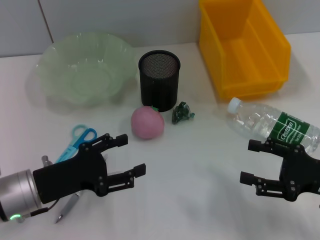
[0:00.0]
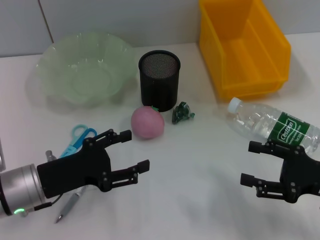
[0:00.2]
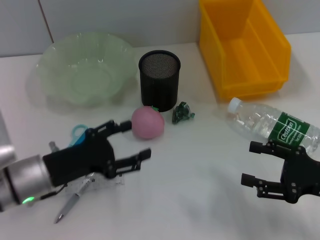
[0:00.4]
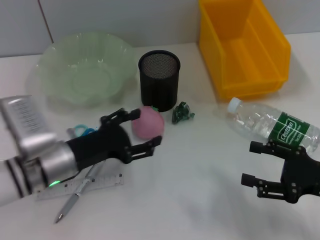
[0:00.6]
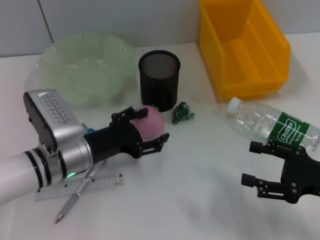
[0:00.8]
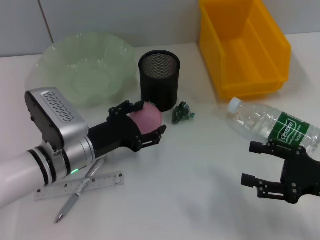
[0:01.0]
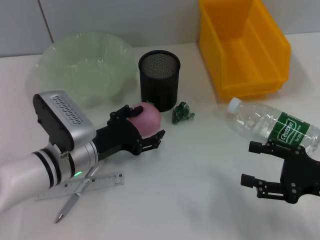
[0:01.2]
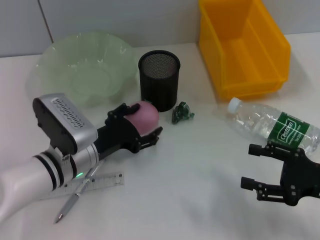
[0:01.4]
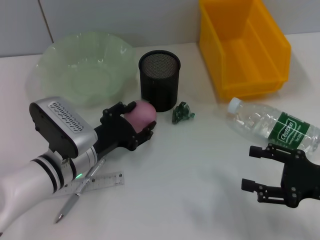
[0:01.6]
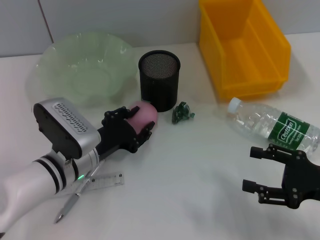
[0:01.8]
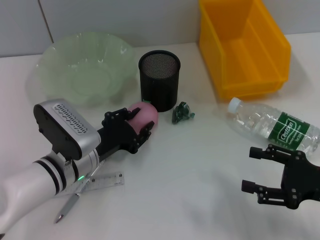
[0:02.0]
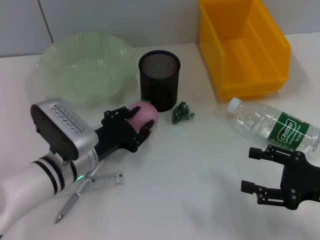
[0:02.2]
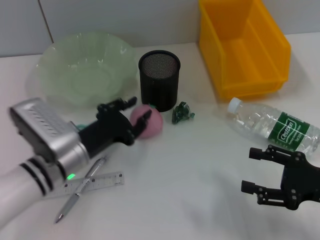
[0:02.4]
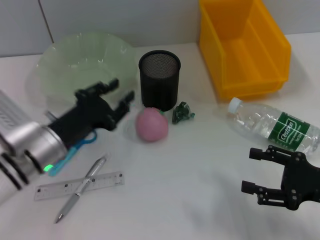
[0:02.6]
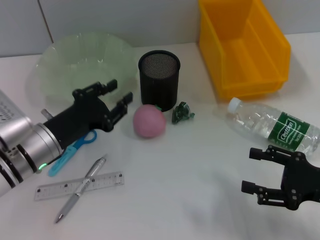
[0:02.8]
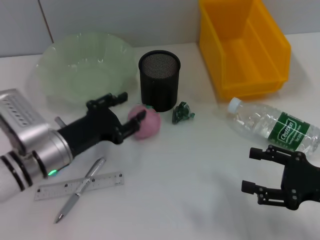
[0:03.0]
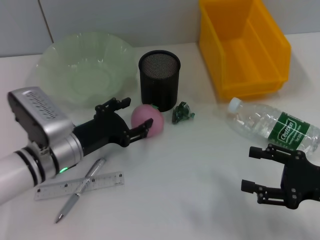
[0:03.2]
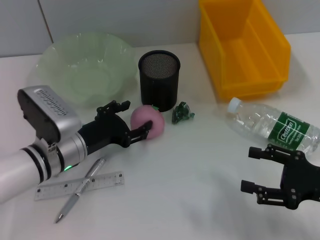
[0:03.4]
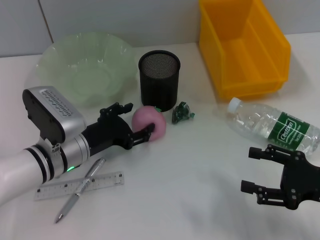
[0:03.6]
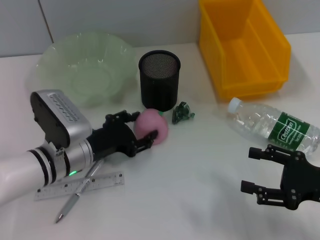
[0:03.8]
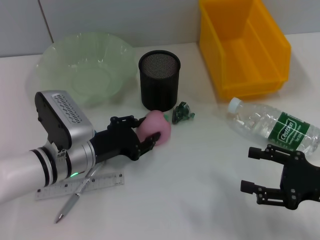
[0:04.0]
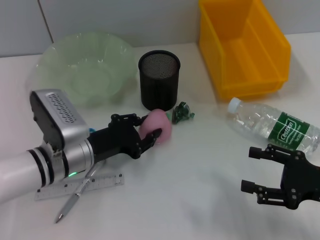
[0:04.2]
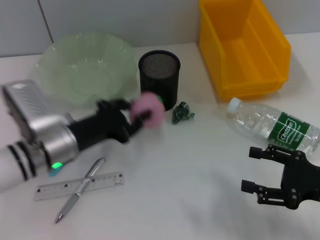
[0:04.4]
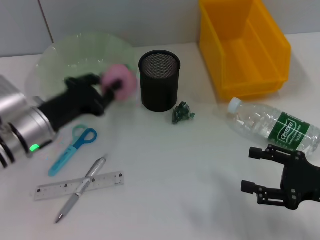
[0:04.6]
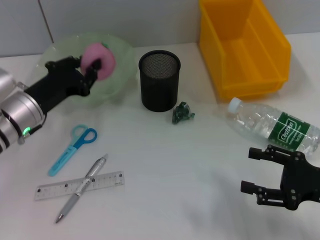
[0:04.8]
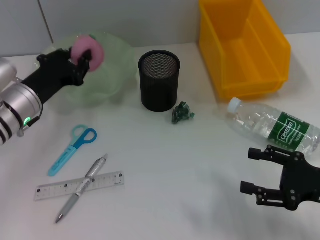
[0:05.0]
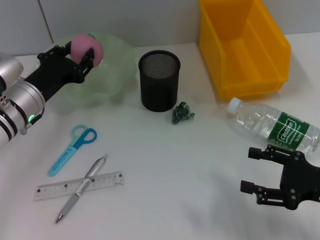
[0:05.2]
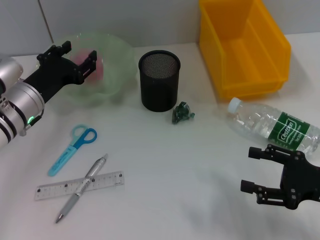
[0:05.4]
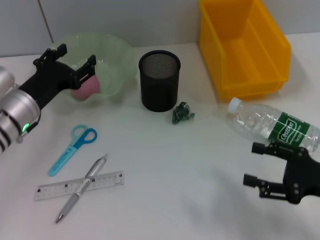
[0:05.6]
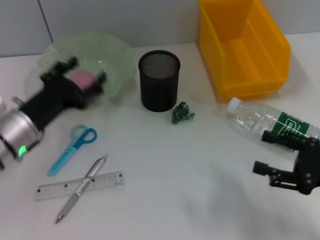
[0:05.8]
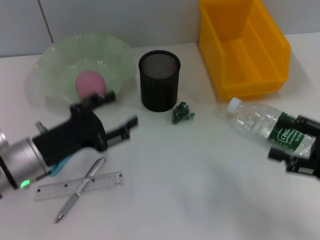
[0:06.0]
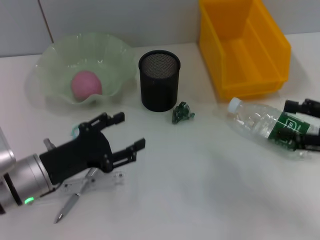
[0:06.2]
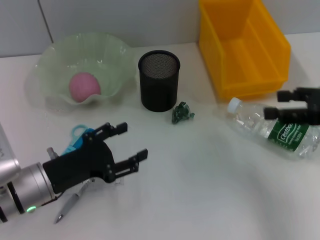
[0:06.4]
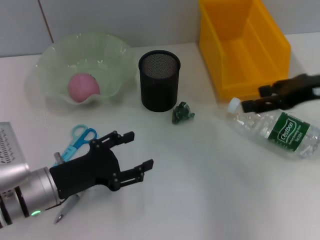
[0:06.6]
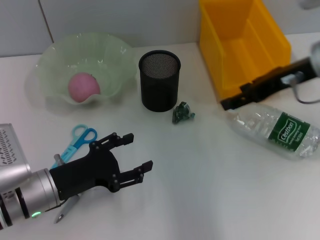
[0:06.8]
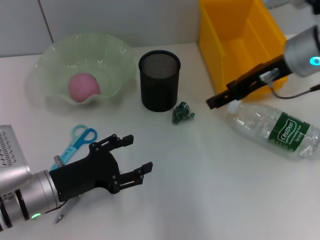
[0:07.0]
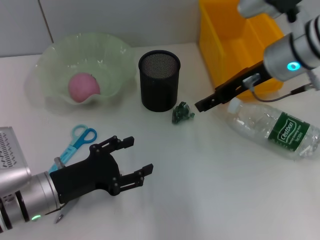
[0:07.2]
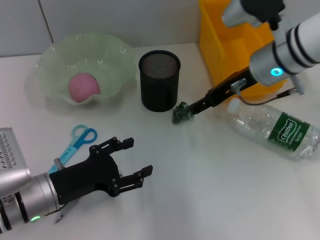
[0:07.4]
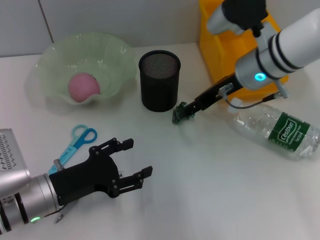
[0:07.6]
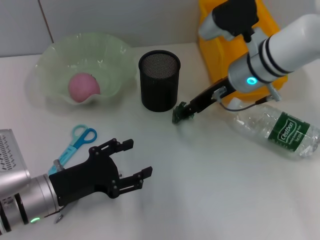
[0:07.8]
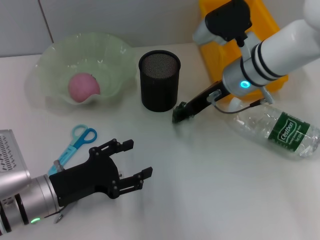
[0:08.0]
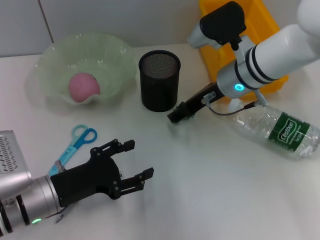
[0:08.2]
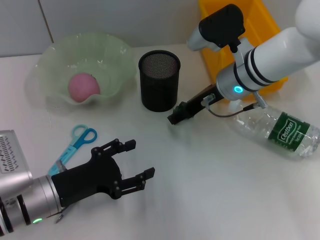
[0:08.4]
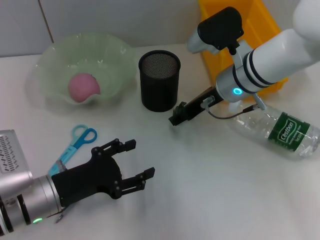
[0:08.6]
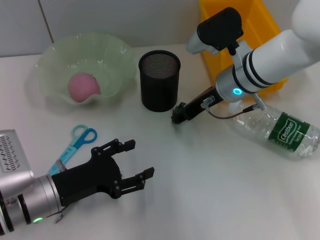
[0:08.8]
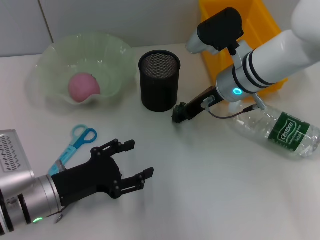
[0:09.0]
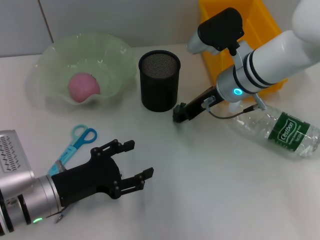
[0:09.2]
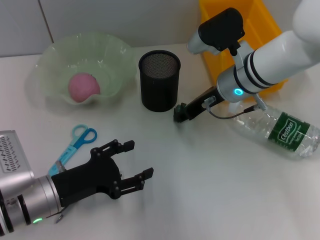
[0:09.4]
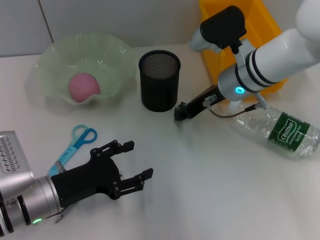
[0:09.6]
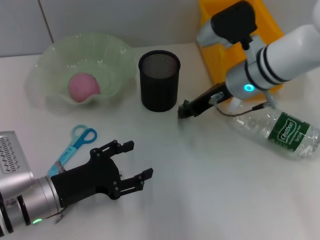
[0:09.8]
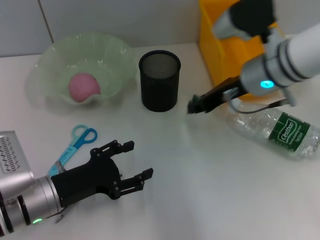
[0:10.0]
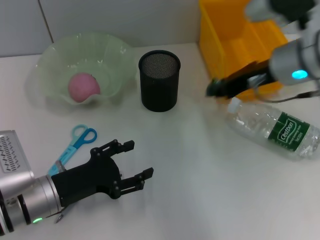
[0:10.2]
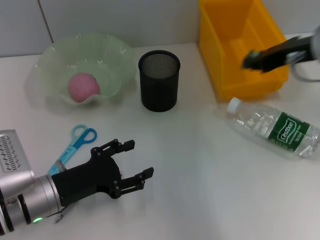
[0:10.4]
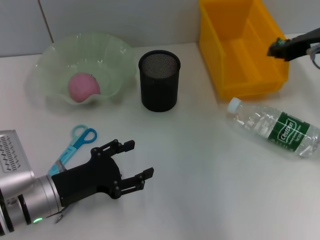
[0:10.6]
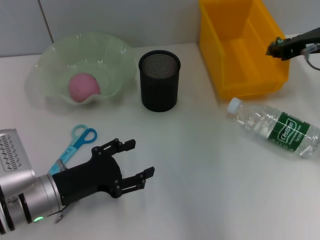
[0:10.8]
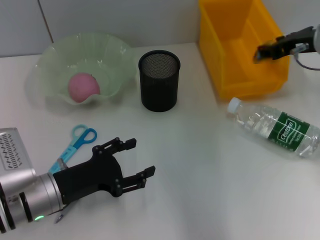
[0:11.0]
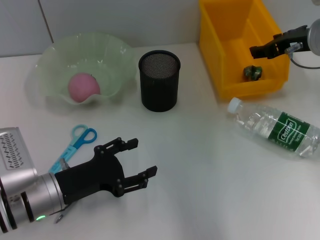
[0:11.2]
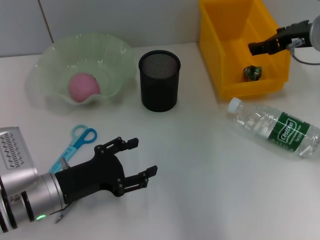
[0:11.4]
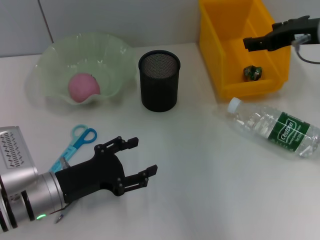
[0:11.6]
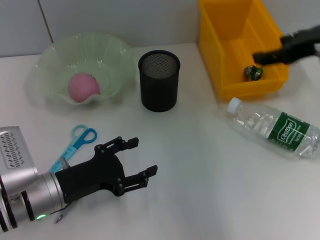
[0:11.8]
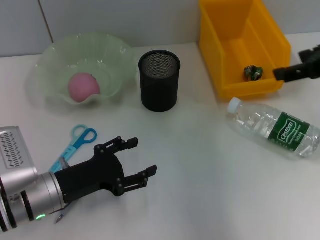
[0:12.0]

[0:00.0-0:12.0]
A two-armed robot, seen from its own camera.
Step, 0:00.0 to 0:03.8: Grab the peach with the left hand.
Step, 0:04.0 to 0:05.6: Place the peach into the fruit bowl with the left hand.
Step, 0:05.8 to 0:08.8: Grab the plastic with the right hand.
Step, 0:09.0 to 0:11.6: Place the plastic into the trash can with the right hand.
0:00.0 to 0:01.6: The left gripper is displaced to the right and forward by roughly 10 cm.
0:01.6 to 0:03.0: The left gripper closes.
0:03.0 to 0:04.4: The left gripper opens, then closes once more.
0:04.4 to 0:06.0: The left gripper ends up roughly 5 cm from where it was, and opens its fingers.
0:06.0 to 0:07.6: The right gripper moves forward and to the left, roughly 25 cm.
0:07.6 to 0:09.0: The grippers stay close to where they were, moving slightly.
0:09.0 to 0:10.4: The right gripper shifts approximately 15 cm to the right, upward and backward, and closes its fingers.
0:10.4 to 0:12.0: The right gripper shifts by about 5 cm, and opens.

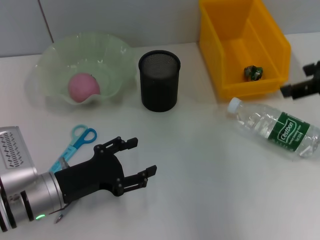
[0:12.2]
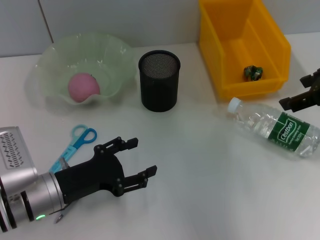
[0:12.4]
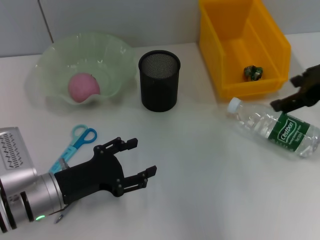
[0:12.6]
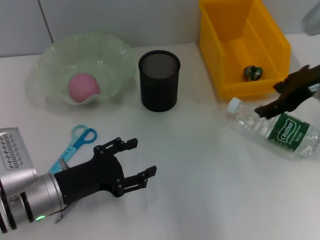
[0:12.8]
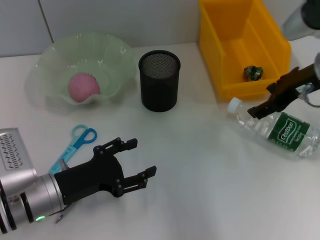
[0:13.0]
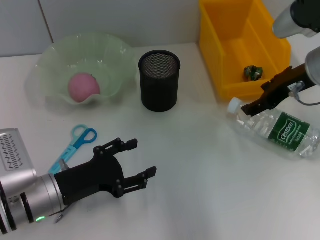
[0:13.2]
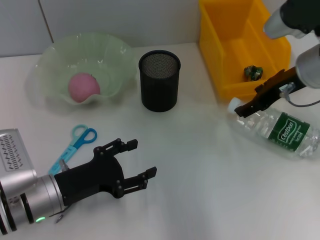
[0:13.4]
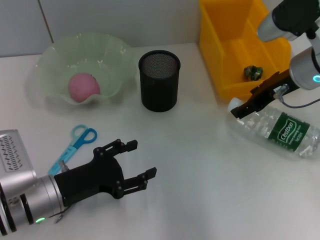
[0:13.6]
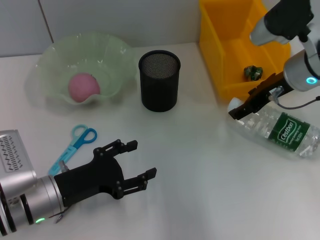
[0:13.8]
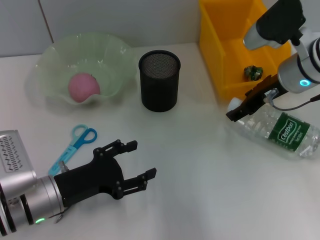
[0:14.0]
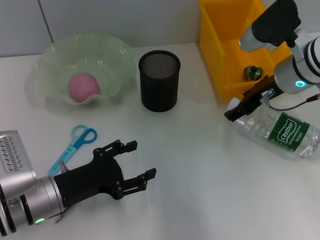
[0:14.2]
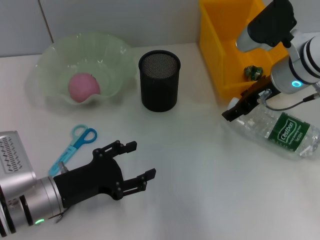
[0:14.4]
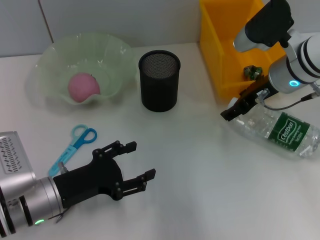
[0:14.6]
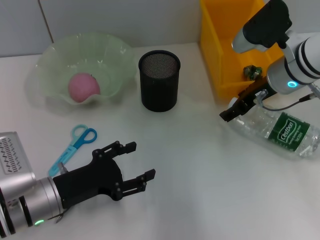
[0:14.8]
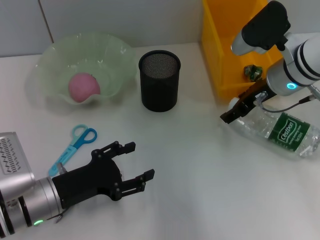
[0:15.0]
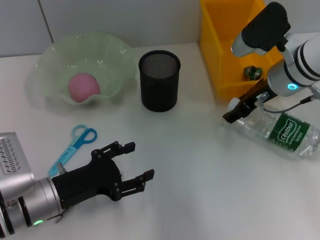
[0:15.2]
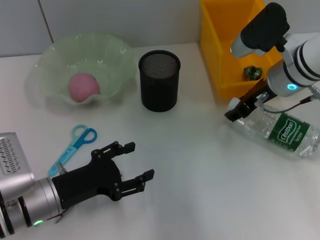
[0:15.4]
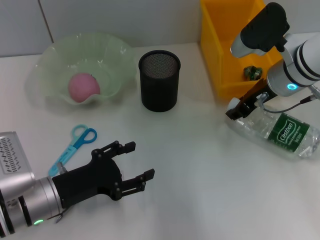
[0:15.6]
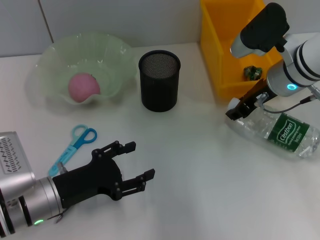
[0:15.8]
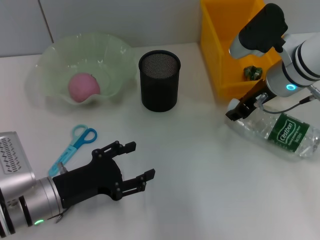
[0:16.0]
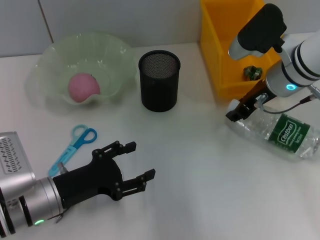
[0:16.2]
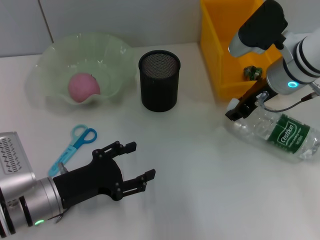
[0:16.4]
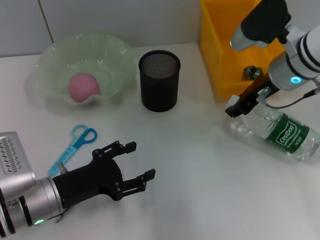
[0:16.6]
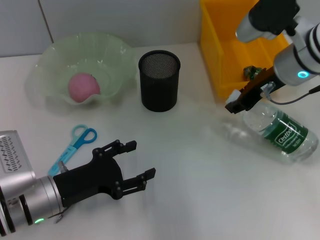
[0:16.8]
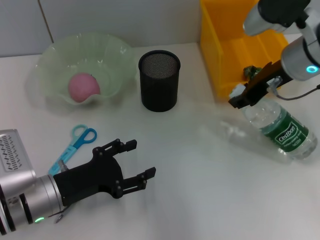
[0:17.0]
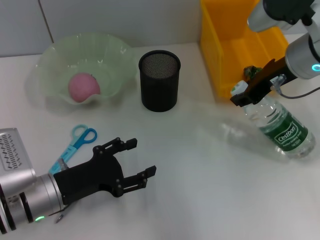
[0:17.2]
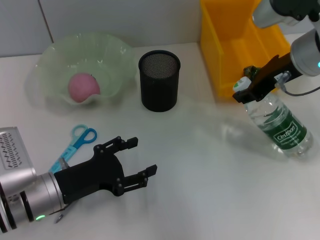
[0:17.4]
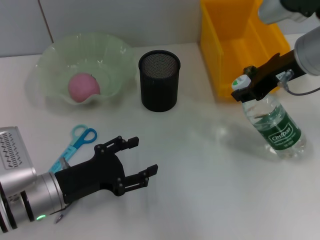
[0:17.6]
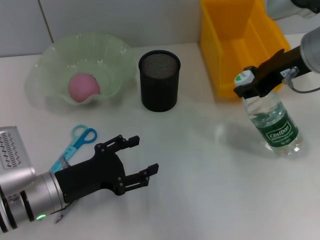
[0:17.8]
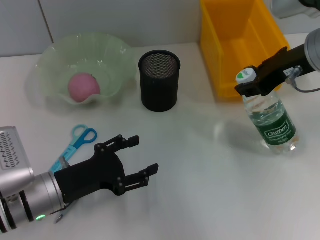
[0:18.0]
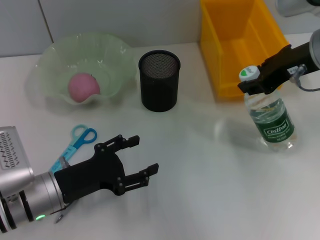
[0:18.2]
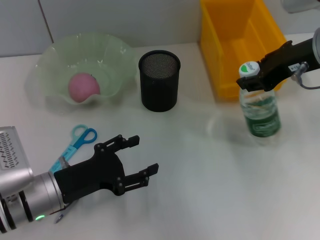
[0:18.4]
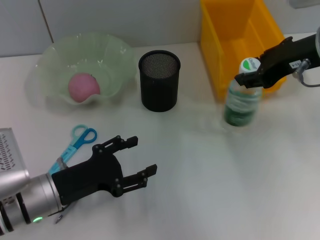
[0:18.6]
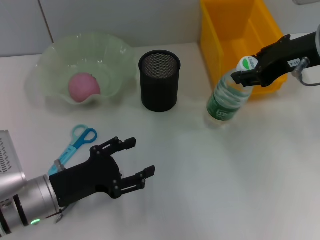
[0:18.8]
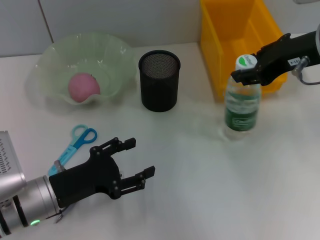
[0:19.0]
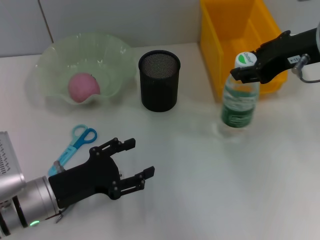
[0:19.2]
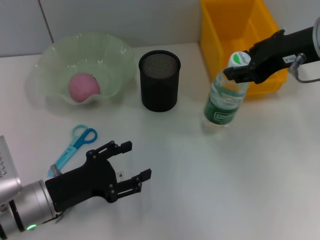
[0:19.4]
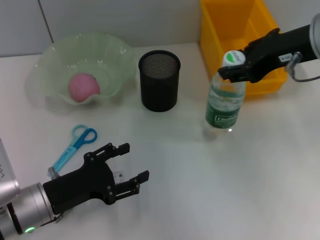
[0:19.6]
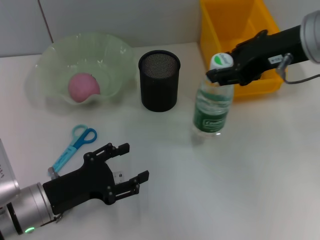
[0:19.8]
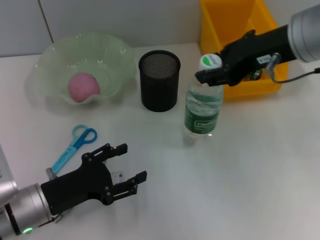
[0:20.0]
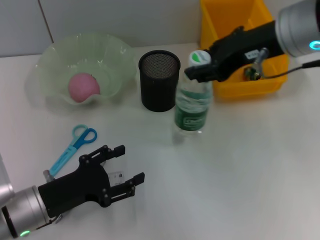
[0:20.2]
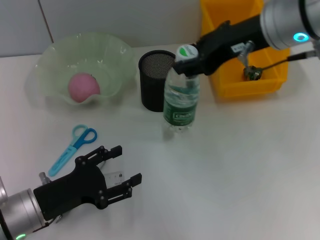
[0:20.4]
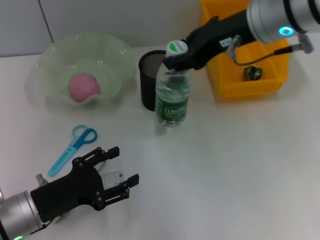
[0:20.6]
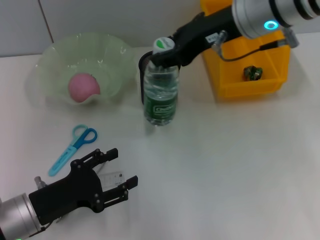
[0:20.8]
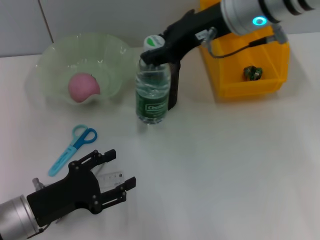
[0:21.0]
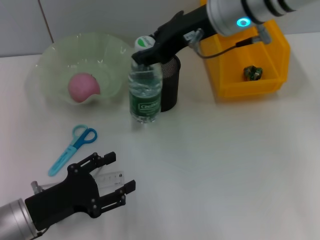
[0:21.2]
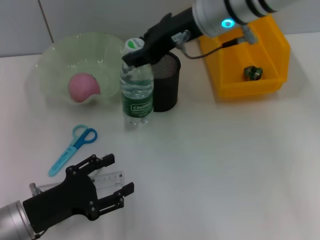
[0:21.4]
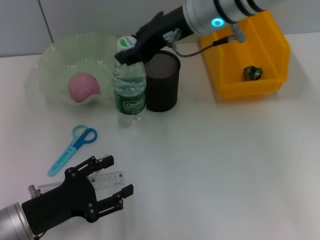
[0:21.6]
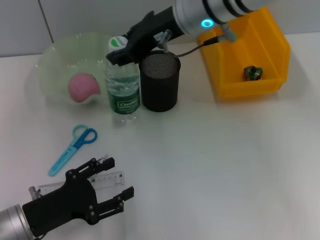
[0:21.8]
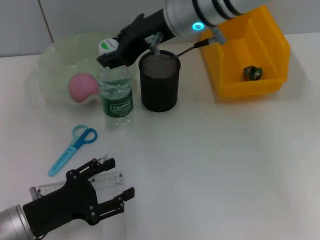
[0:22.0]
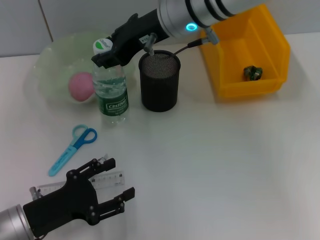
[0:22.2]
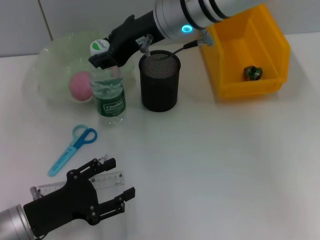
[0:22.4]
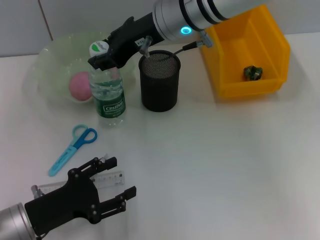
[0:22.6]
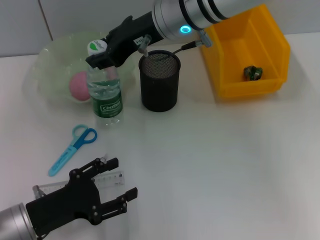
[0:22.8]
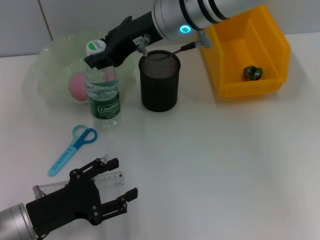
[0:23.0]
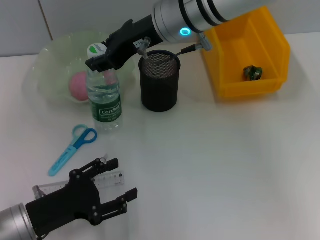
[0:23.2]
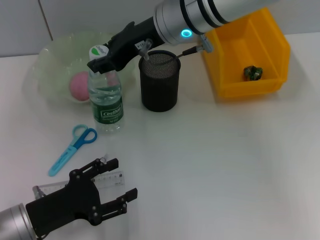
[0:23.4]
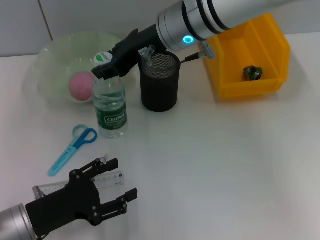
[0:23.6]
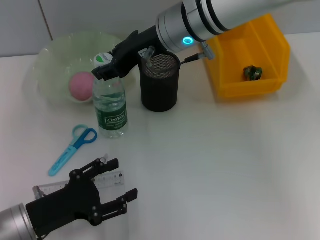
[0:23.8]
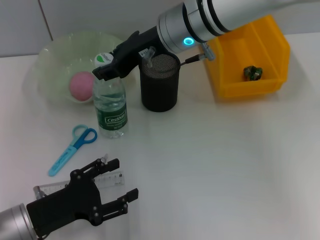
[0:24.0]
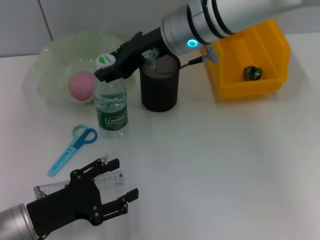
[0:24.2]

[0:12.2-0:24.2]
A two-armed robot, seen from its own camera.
Step, 0:12.2 to 0:16.0: Grab the water bottle with the right hand.
0:12.2 to 0:13.8: The right gripper shifts about 15 cm downward, forward and to the left.
0:13.8 to 0:15.2: The grippers make only small movements.
0:15.2 to 0:16.6: The right gripper closes.
0:16.6 to 0:18.2: The right gripper moves upward and backward, some 10 cm.
0:18.2 to 0:19.8: The grippers make only small movements.
0:19.8 to 0:21.2: The right gripper shifts approximately 10 cm to the left and forward.
0:21.2 to 0:22.6: The right gripper heads to the left, covering some 5 cm.
0:22.6 to 0:24.2: There are only small adjustments of the grippers.
